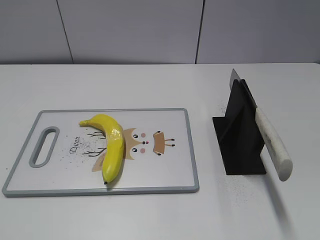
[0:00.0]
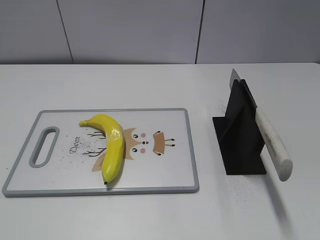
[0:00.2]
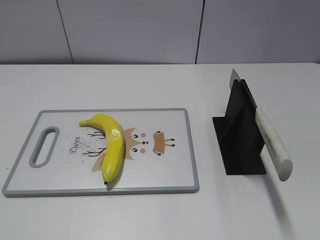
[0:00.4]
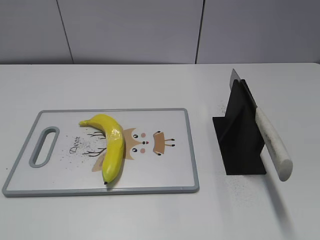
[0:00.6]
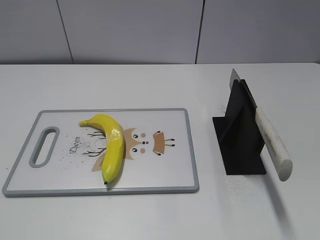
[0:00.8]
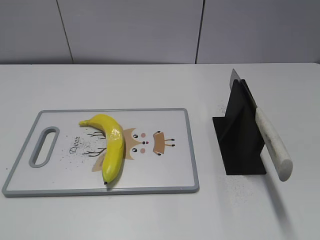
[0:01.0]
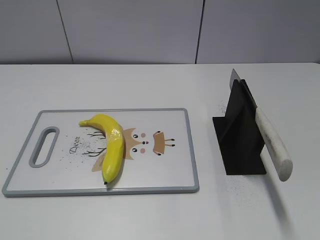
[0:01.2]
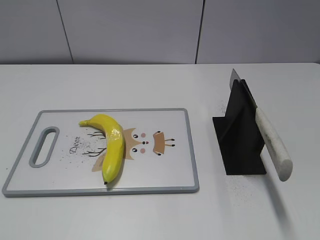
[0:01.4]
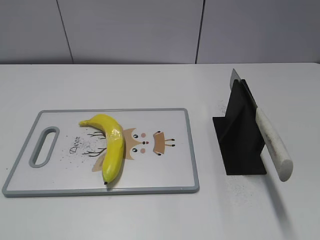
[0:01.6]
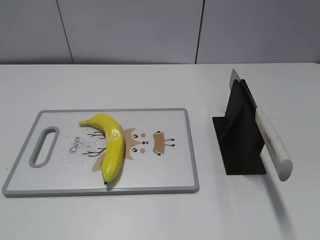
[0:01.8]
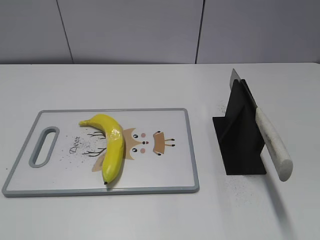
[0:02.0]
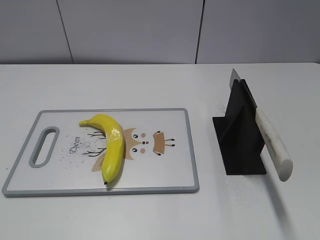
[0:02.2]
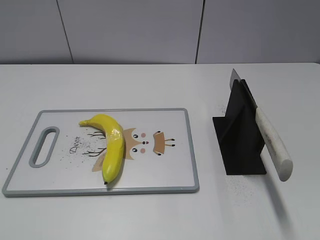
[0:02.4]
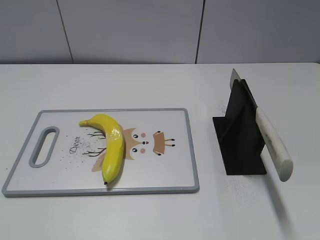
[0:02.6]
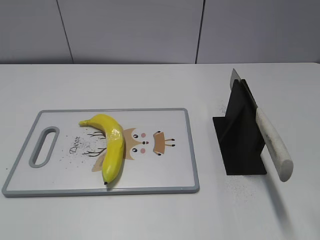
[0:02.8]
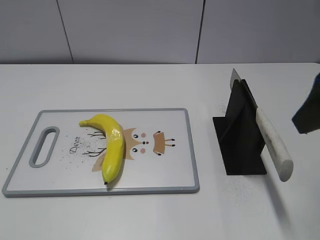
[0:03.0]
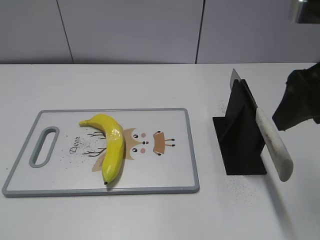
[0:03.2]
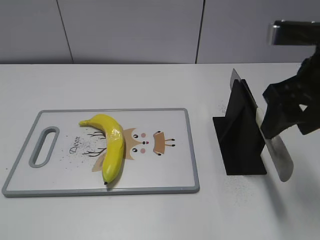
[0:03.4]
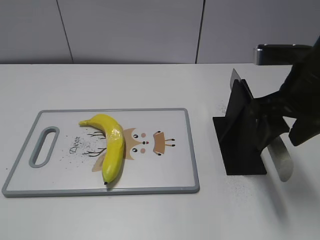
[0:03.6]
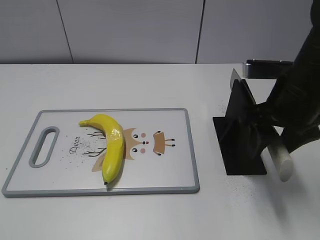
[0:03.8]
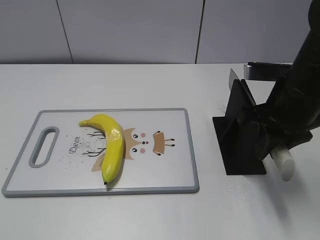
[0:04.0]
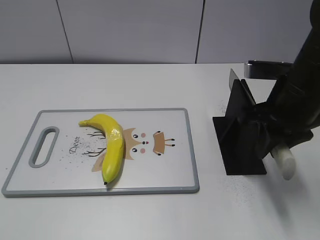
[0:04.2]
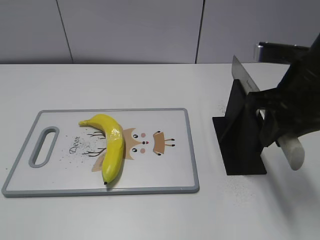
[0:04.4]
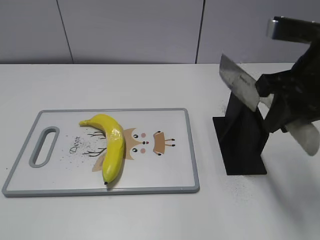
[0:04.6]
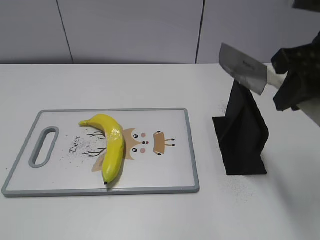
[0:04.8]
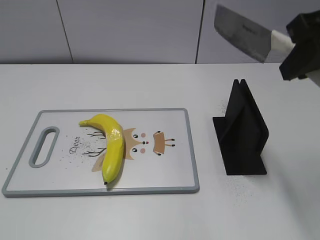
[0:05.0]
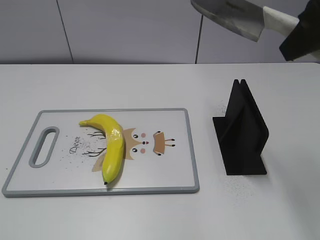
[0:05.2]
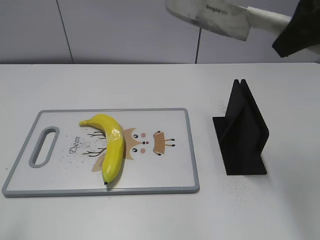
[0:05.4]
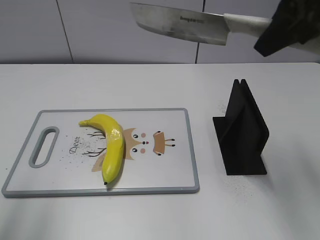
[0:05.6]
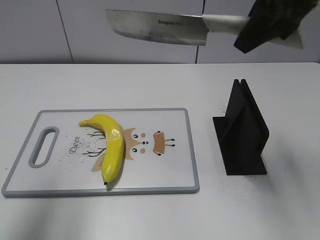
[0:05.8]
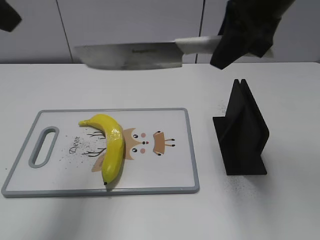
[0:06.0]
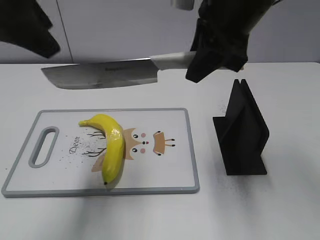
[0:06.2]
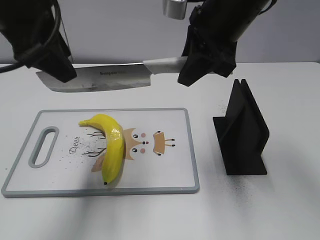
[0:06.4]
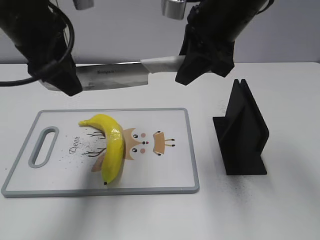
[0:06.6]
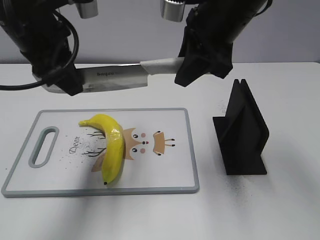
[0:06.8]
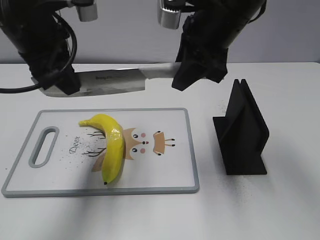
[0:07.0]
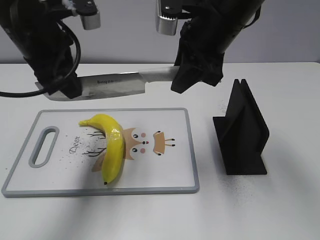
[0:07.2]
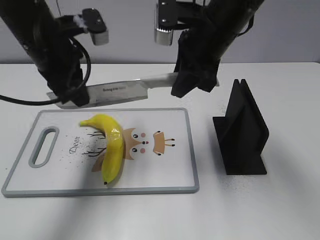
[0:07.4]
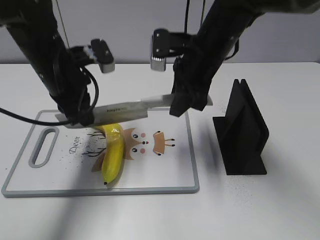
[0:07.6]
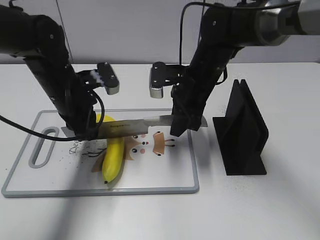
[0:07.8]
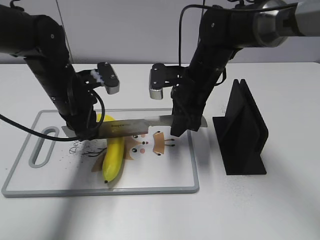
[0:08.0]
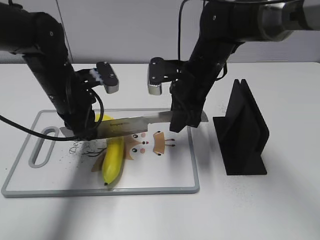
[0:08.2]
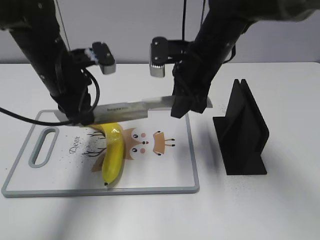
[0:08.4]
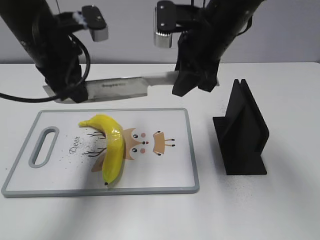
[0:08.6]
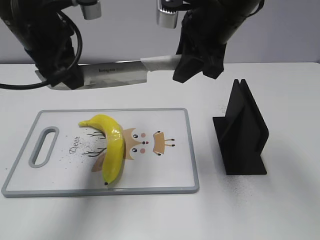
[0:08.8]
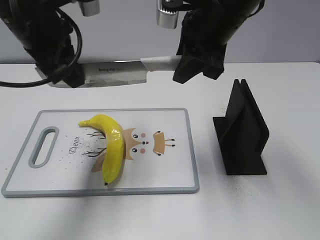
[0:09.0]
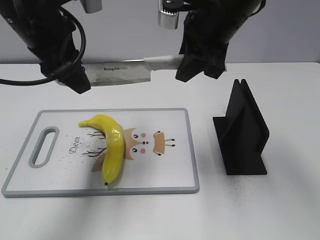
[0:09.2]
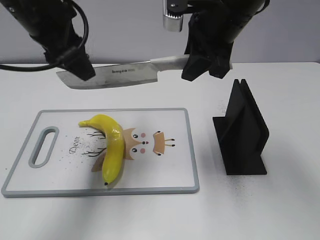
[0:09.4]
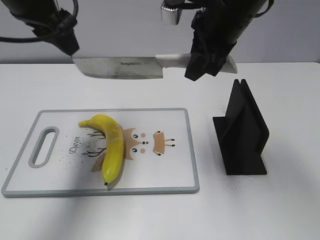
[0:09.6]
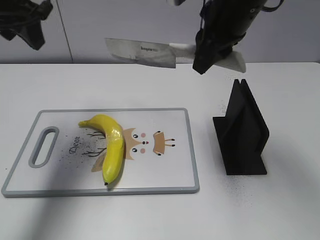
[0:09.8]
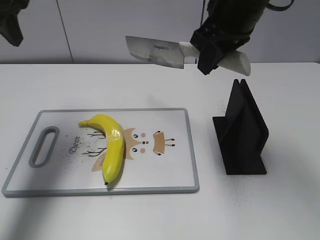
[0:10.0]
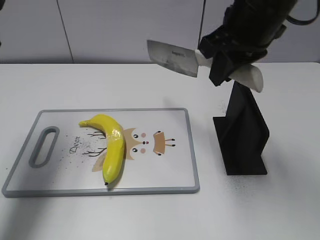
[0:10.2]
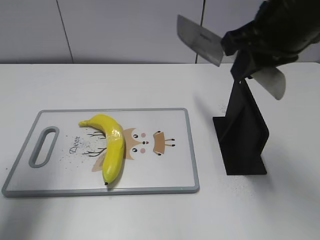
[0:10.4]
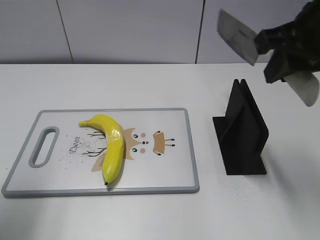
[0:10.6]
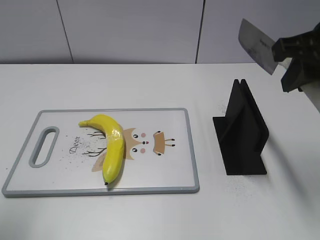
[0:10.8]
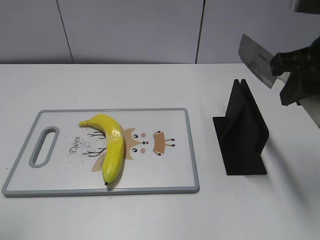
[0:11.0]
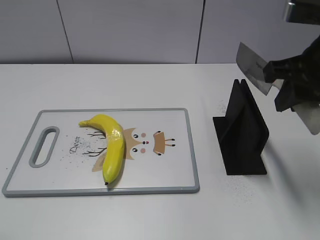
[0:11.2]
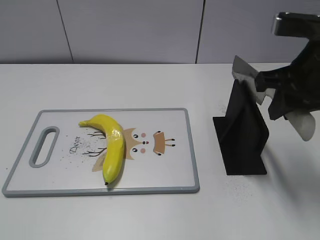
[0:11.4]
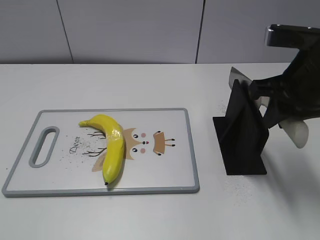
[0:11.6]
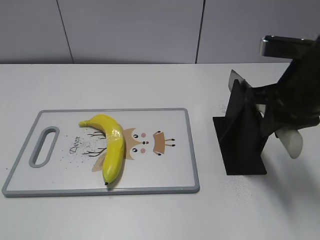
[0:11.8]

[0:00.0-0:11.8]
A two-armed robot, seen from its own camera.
Task of the whole recording: cut plastic banana.
Step, 0:00.0 to 0:05.0: Grab the knife handle with your right hand.
Step, 0:05.2 to 0:08.6: Lift the knife with your right hand.
Step, 0:09.0 to 0:10.0: Cut the banana with your right hand.
Step, 0:10.4 to 0:11.4: Lift the knife with your right hand.
0:01.4 to 0:03.0: The right gripper moves forward, roughly 20 cm.
0:03.0 to 0:04.4: The right gripper moves downward and forward, approximately 10 cm, and closes up.
0:04.4 to 0:06.0: The left gripper heads forward and upward, covering roughly 30 cm; the right gripper moves upward and to the left, roughly 10 cm.
0:06.0 to 0:07.4: The right gripper shifts about 10 cm downward. The left gripper travels downward, forward and to the right by roughly 20 cm, and closes up.
0:07.4 to 0:08.8: The left gripper reaches roughly 10 cm downward, then returns. The right gripper goes downward and returns, roughly 15 cm each way.
0:08.8 to 0:10.4: The right gripper heads backward and to the right, covering some 10 cm; the left gripper travels to the left and backward by approximately 15 cm, and opens.
0:10.4 to 0:11.8: The right gripper moves downward, roughly 10 cm. The left gripper shifts roughly 25 cm backward.

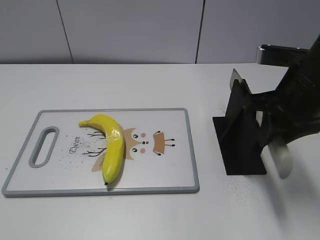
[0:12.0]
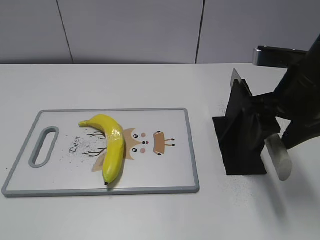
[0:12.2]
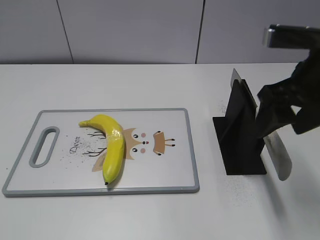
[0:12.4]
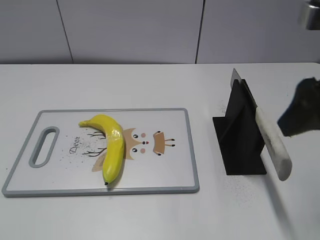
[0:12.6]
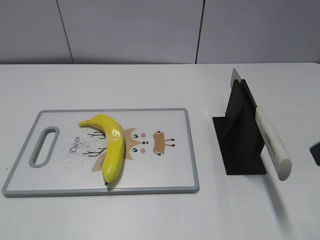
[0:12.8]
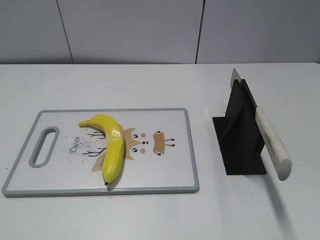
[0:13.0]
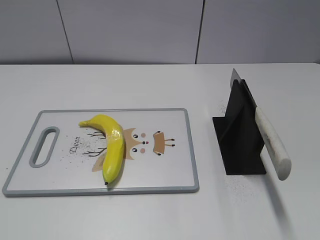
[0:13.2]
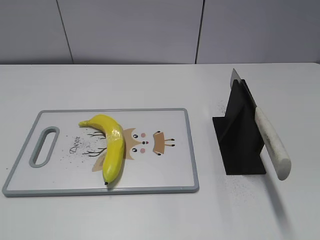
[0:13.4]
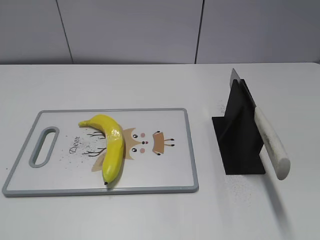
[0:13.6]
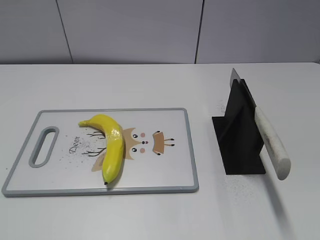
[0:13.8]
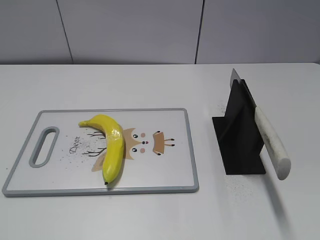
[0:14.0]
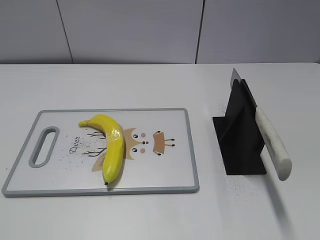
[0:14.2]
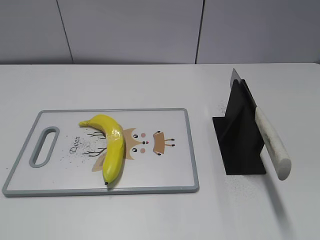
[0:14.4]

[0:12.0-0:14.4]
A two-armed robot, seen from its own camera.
Task of the whole recording: cut plastic banana.
Step, 0:12.0 to 0:14.4: Place the knife on the storage rack with your right hand.
0:12.0 to 0:13.2: The right gripper travels backward by about 20 cm, and opens.
